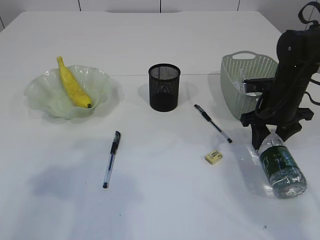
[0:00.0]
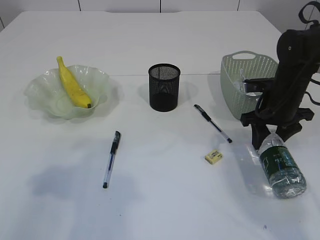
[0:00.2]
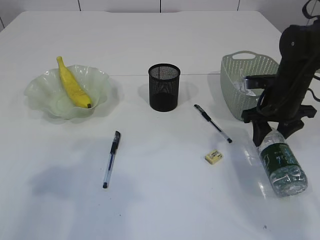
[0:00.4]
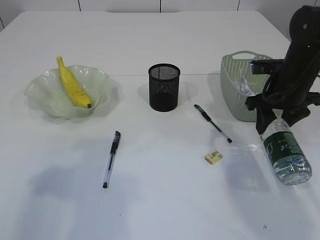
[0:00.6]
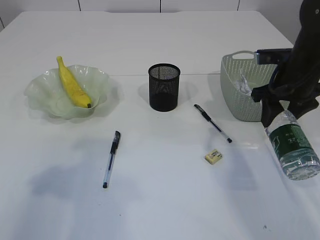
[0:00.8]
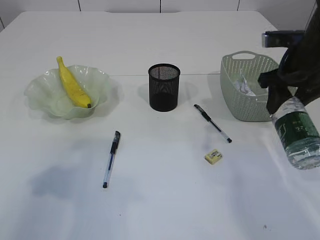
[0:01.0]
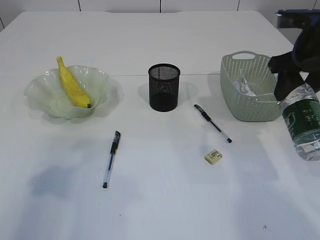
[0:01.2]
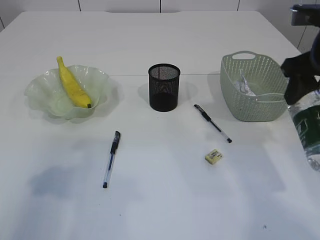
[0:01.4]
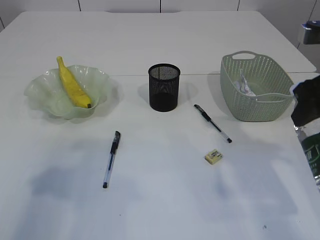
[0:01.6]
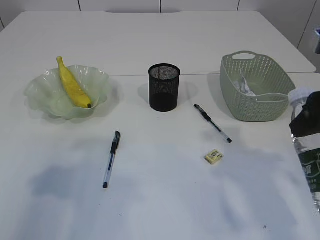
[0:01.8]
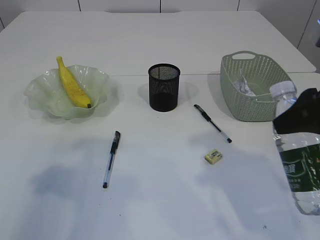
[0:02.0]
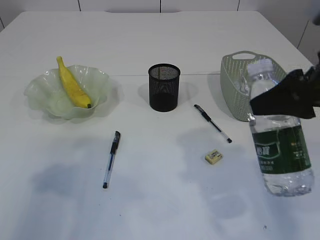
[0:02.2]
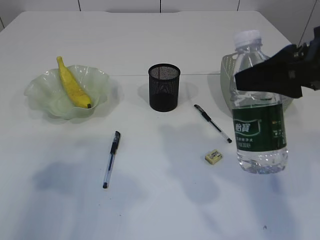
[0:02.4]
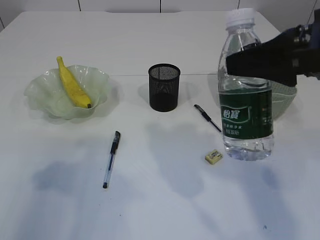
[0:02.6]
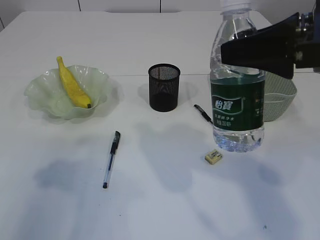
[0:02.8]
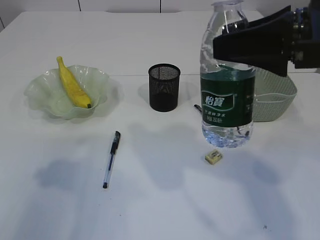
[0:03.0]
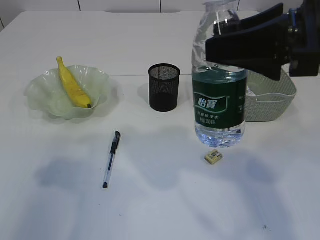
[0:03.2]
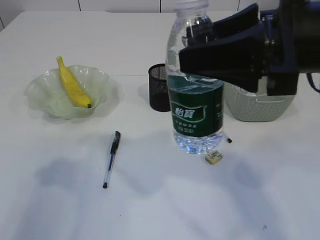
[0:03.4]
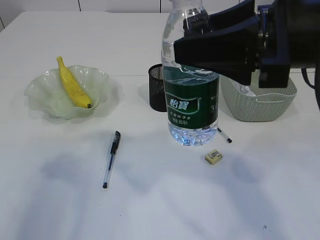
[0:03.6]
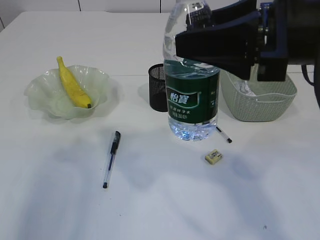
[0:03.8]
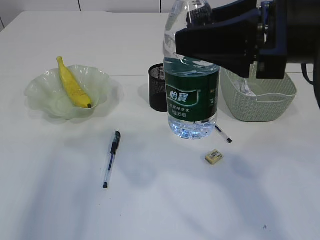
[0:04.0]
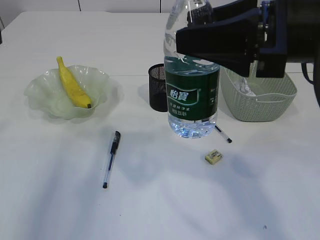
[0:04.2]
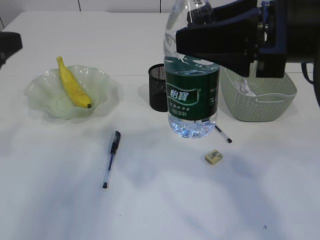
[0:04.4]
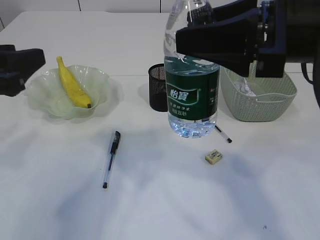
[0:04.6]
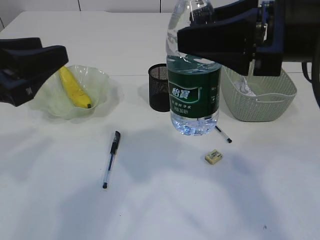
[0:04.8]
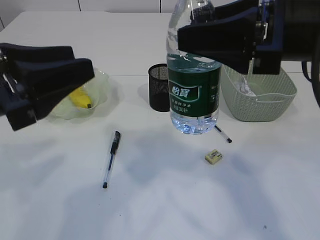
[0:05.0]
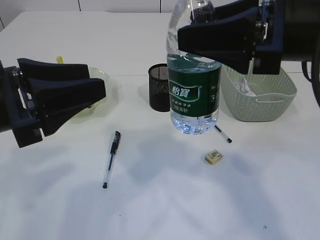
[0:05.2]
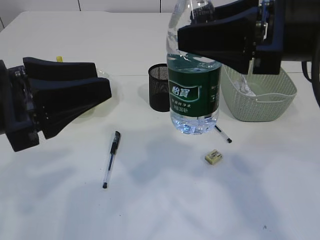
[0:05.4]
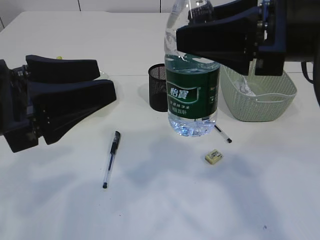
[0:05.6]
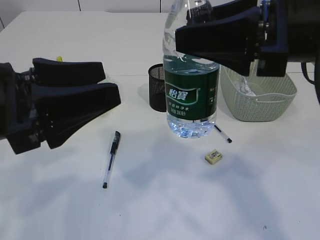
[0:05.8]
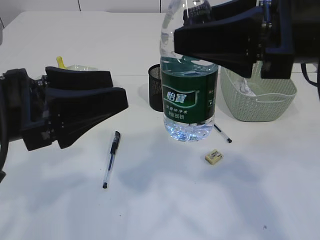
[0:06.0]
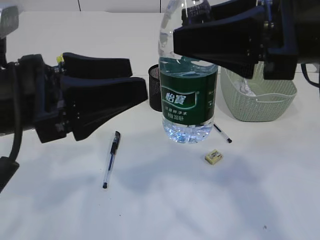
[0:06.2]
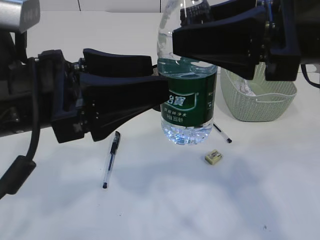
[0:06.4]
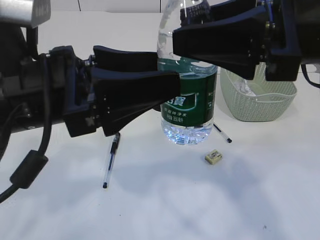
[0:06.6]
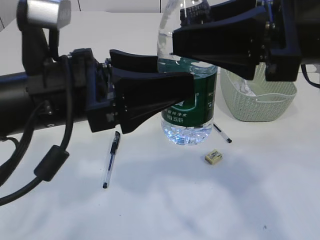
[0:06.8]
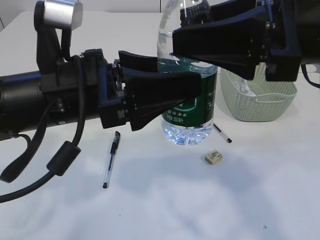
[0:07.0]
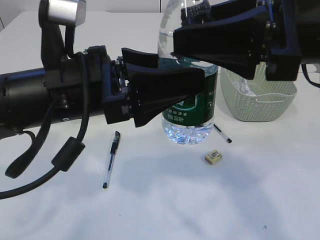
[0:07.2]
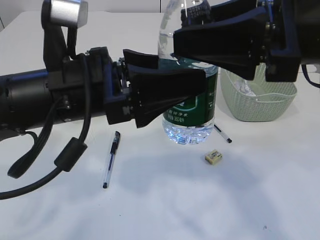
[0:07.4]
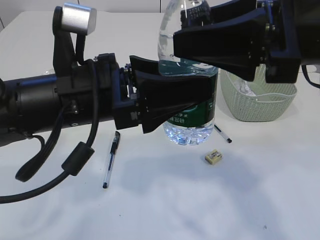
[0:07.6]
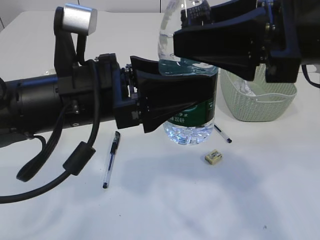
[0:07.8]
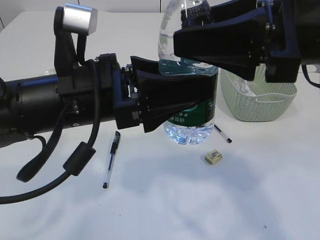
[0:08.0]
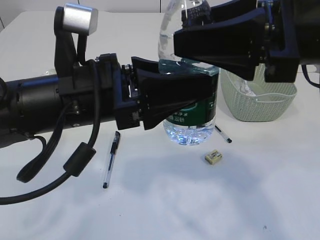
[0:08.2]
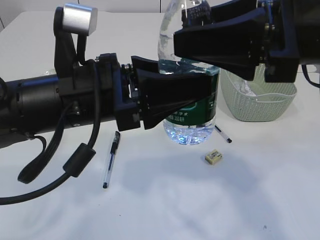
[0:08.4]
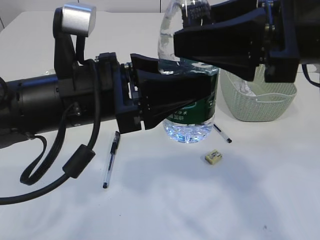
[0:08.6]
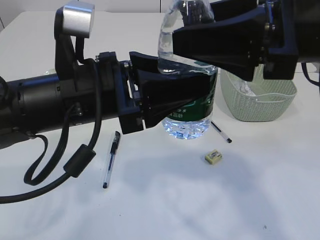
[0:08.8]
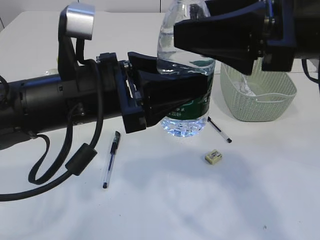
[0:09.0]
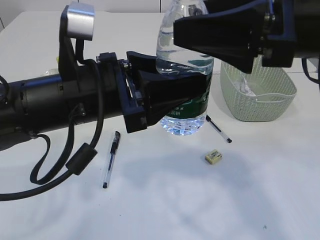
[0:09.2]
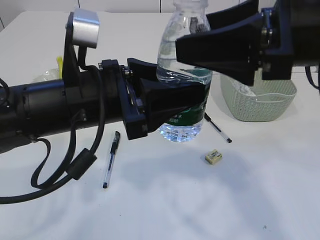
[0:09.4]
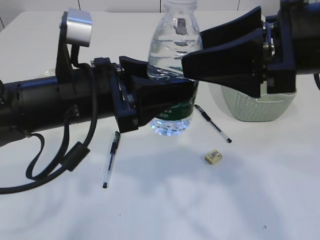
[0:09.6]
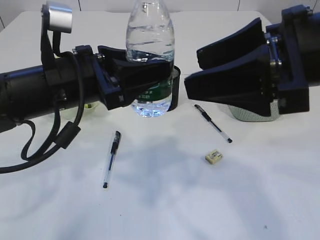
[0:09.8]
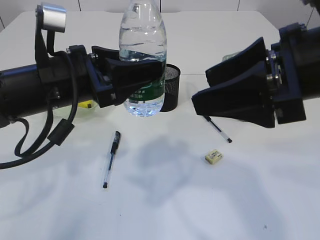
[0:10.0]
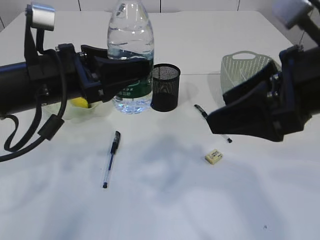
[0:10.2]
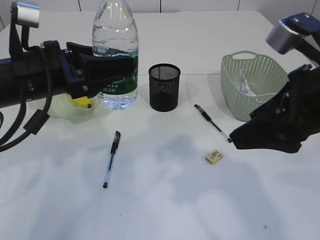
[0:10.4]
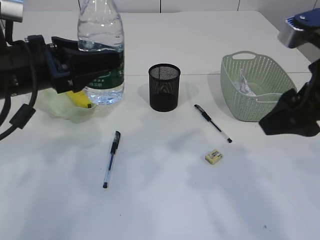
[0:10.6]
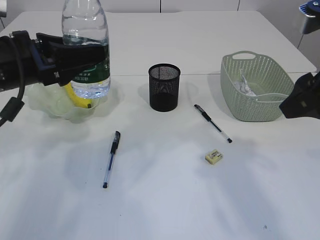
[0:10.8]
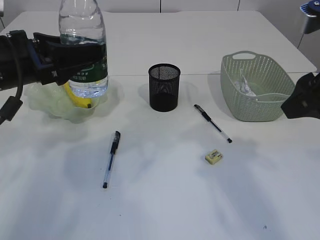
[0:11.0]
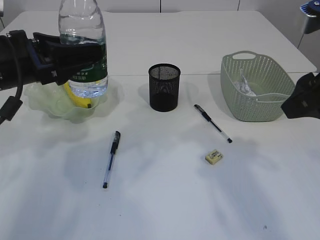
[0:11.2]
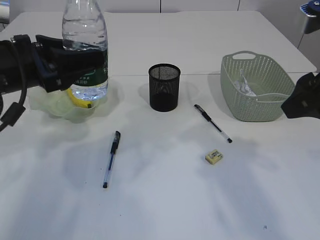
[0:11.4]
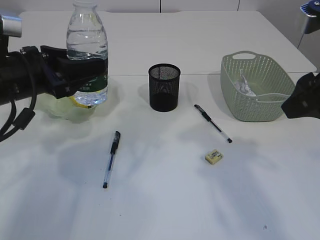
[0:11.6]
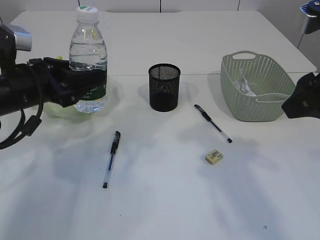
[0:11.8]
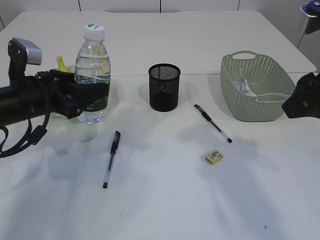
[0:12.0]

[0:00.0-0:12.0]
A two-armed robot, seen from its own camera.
Step, 0:00.8 to 0:09.6: transfer the bottle to the left arm.
0:00.0 to 0:01.6: The right gripper heads upward and backward, covering some 20 cm.
0:01.6 to 0:03.0: The right gripper is displaced to the left and upward by about 10 cm.
0:03.0 to 0:04.4: The left gripper is displaced forward by approximately 5 cm.
0:04.4 to 0:06.0: The left gripper moves to the right, approximately 10 cm.
0:06.0 to 0:07.6: The left gripper shifts about 10 cm to the right.
0:07.6 to 0:09.0: The grippers stay close to where they were, moving slightly.
0:09.0 to 0:10.4: The right gripper changes place by some 5 cm. The left gripper goes roughly 10 cm to the left.
0:10.4 to 0:12.0: The left gripper travels downward and to the left by roughly 10 cm.

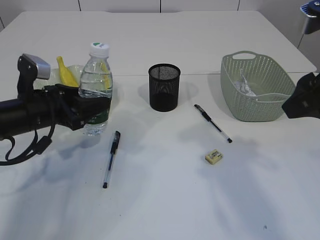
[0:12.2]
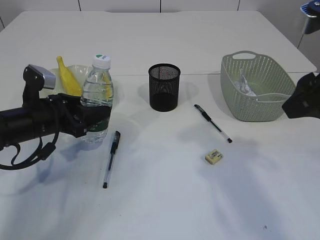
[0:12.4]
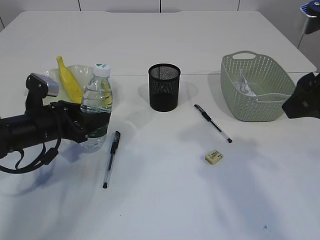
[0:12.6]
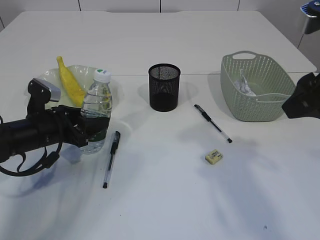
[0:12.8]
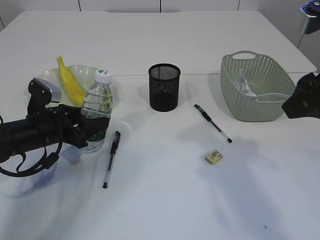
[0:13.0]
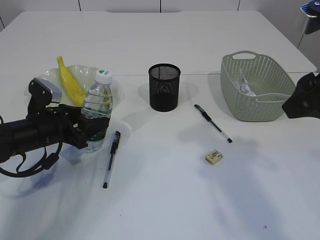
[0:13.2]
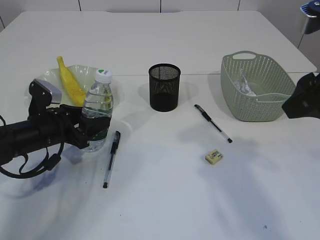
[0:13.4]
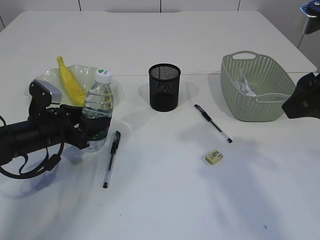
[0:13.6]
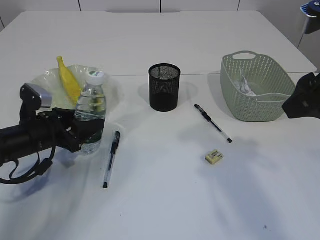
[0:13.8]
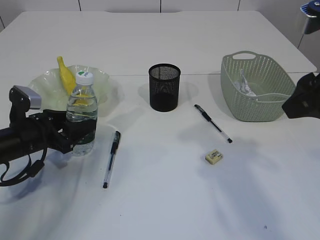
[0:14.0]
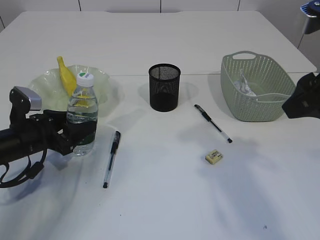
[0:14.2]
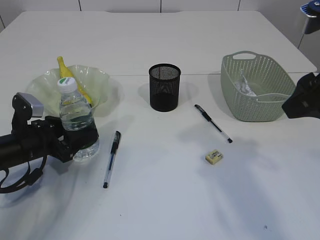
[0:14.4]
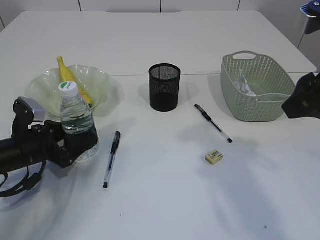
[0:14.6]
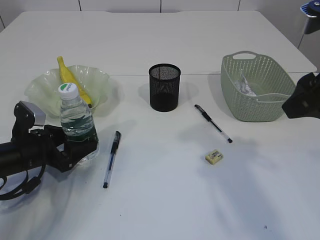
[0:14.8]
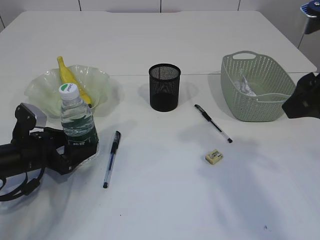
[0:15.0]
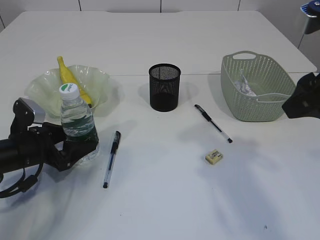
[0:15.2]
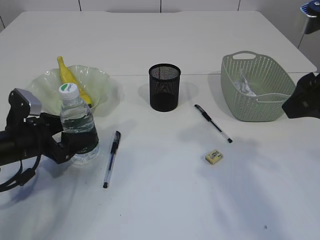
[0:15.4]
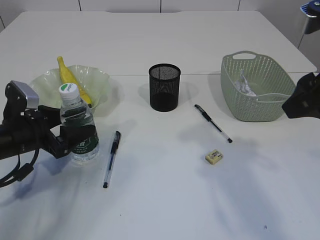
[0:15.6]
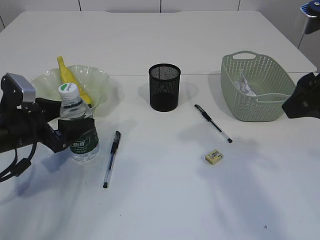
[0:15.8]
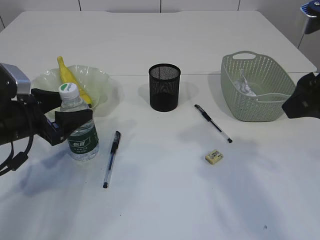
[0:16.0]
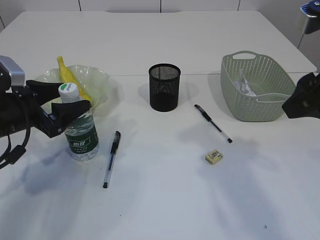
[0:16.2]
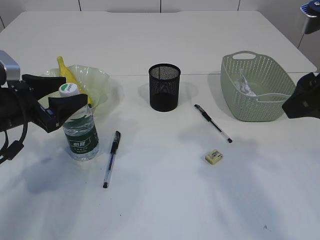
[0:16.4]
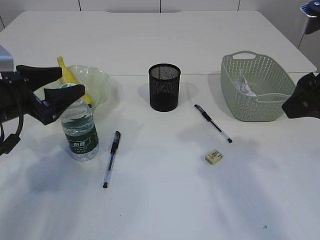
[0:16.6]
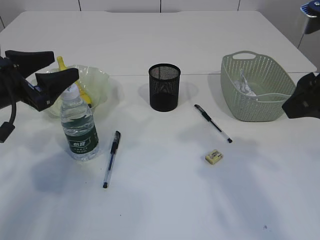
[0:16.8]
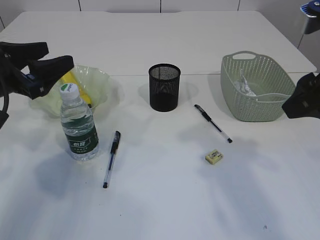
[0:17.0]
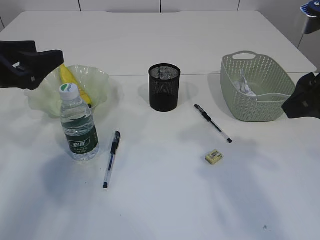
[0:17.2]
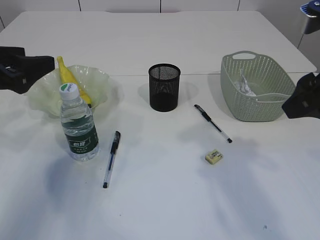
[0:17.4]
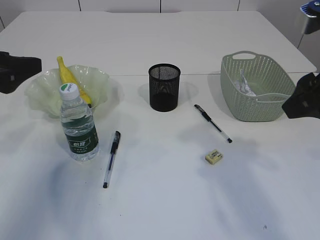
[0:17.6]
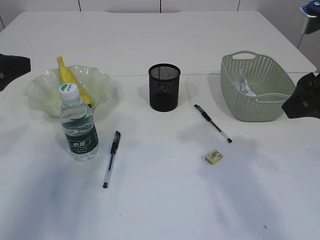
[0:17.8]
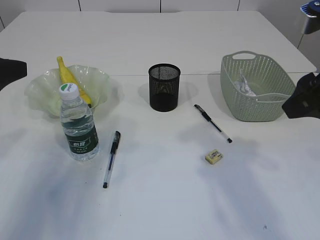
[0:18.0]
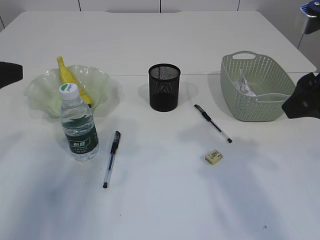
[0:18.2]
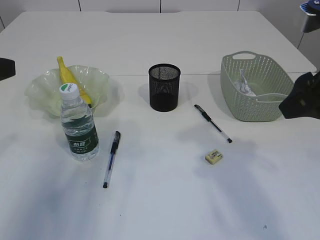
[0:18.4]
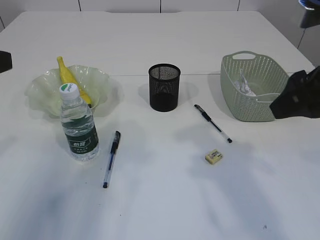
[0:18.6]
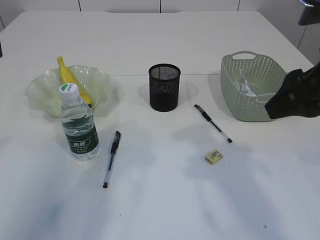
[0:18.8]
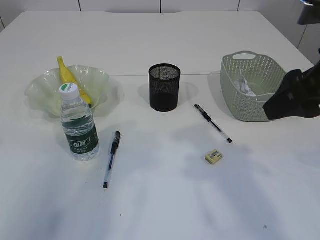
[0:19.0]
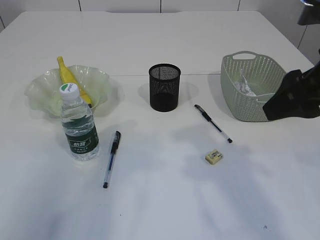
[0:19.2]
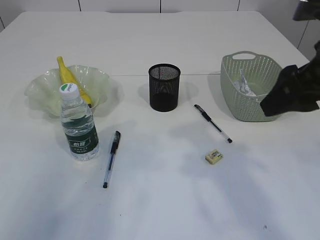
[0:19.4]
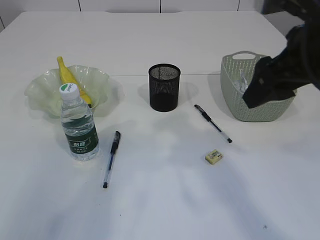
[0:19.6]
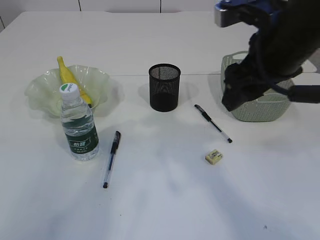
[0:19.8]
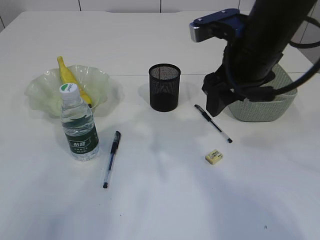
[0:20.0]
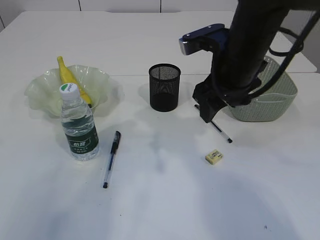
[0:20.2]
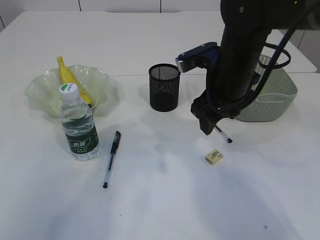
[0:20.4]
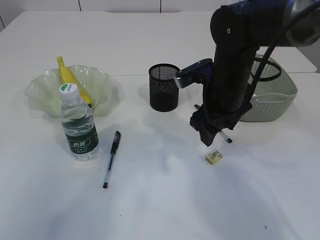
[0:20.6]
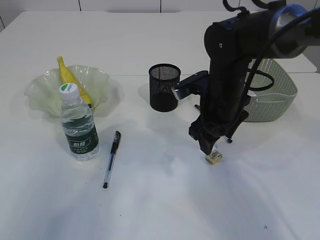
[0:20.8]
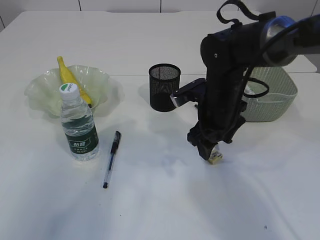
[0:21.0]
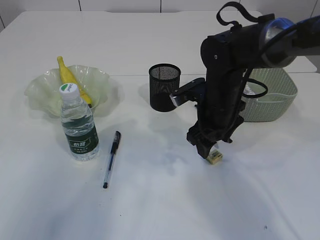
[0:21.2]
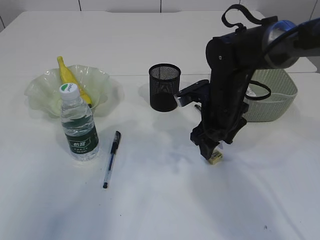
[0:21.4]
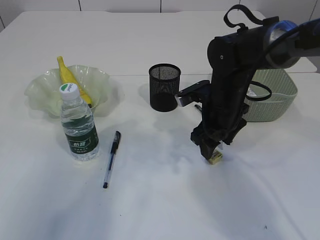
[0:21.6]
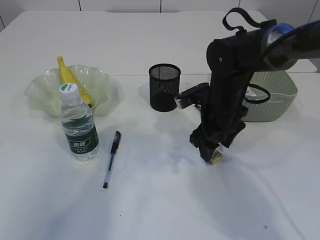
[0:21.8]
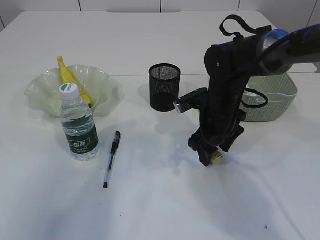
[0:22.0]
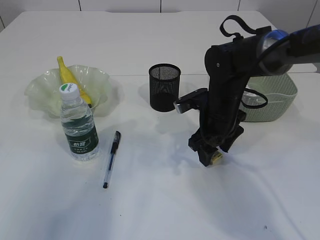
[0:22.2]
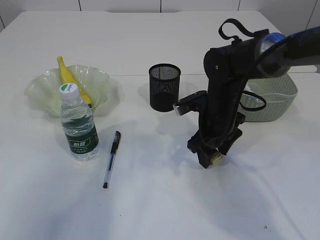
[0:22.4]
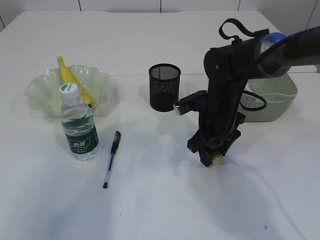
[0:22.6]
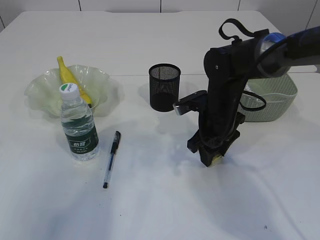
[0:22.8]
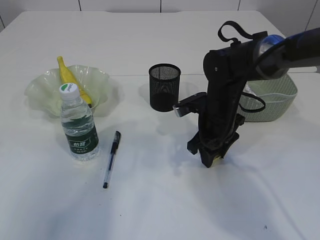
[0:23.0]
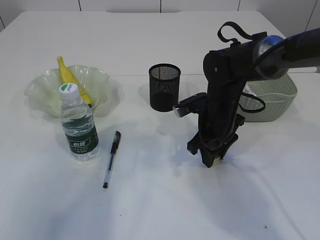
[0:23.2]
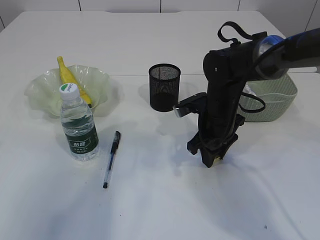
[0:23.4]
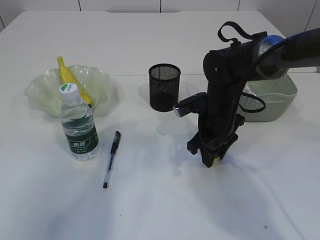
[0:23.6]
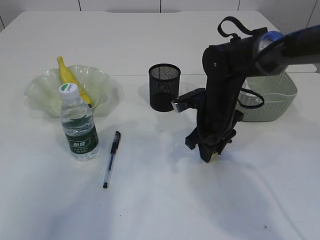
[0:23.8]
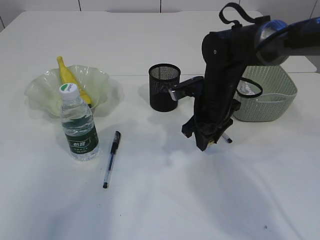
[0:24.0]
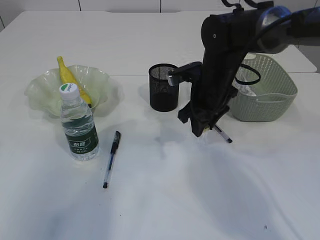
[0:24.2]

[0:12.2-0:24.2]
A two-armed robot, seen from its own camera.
Step, 0:12.2 to 0:17.2: Place the bottle.
Step, 0:17.4 to 0:24.0: Pick up the eraser.
0:12.2 to 0:13.8: The left gripper is displaced downward by approximately 5 cm.
0:13.8 to 0:15.2: The grippers stay close to where they were, moving slightly.
0:15.2 to 0:16.6: The left gripper travels upward by approximately 10 cm.
0:16.6 to 0:18.2: The left gripper is displaced upward and backward by roughly 15 cm.
0:18.2 to 0:19.8: The right gripper travels to the left and forward by about 10 cm, while the left gripper goes about 10 cm backward and upward.
0:19.8 to 0:21.2: The right gripper travels downward and forward by some 20 cm.
0:21.2 to 0:24.2: The grippers move only a little.
